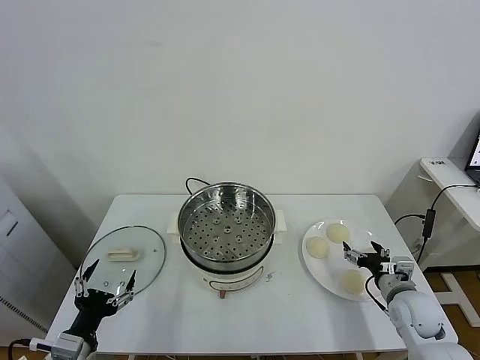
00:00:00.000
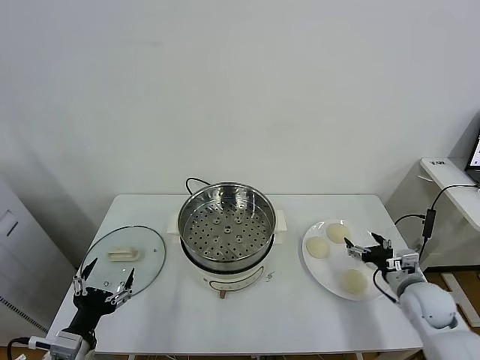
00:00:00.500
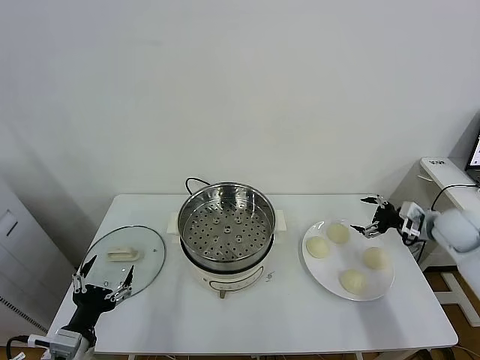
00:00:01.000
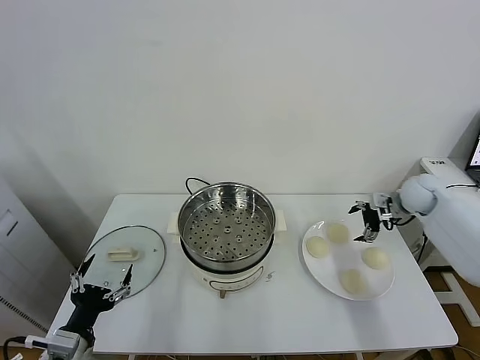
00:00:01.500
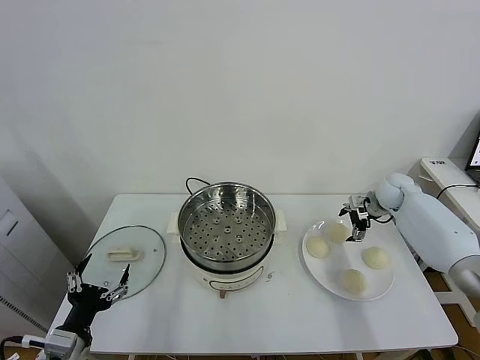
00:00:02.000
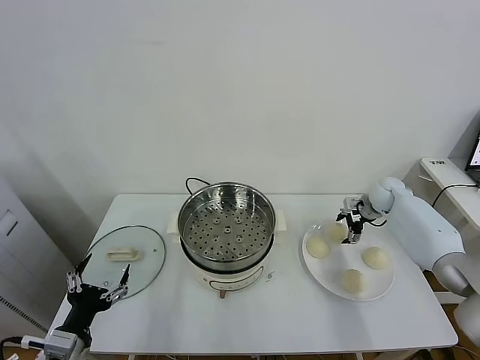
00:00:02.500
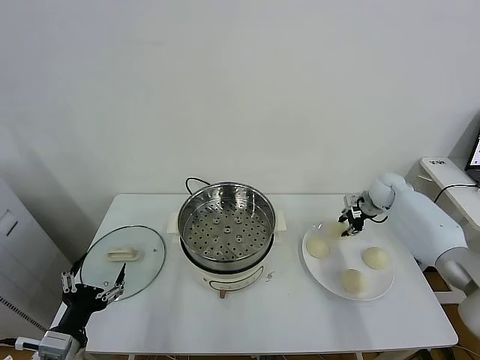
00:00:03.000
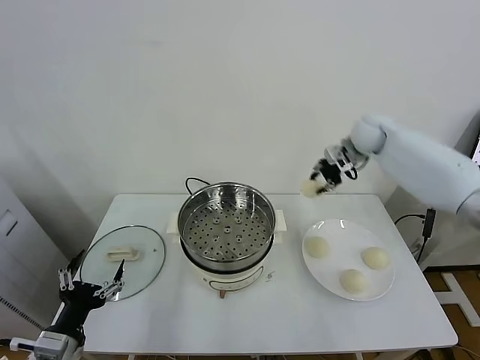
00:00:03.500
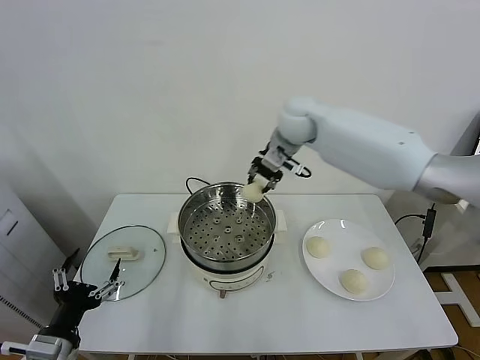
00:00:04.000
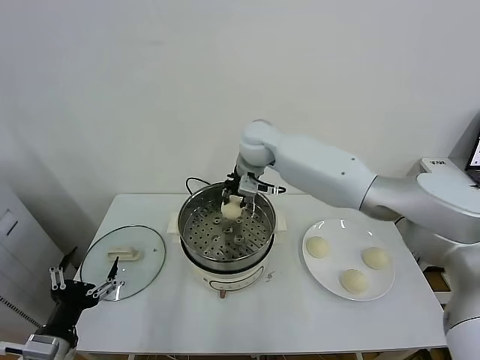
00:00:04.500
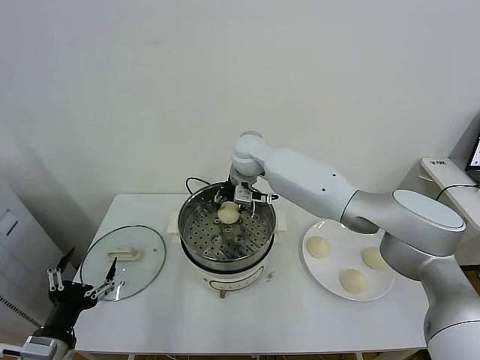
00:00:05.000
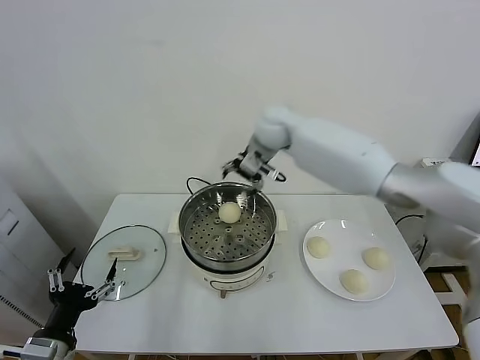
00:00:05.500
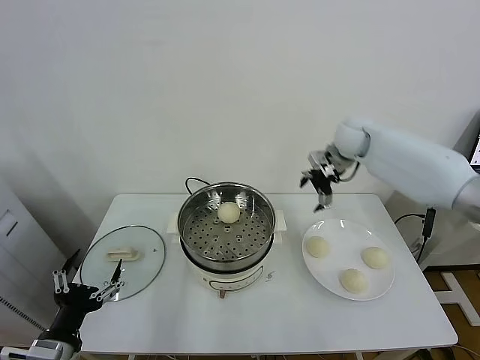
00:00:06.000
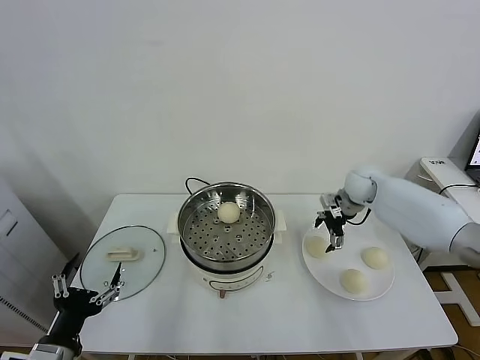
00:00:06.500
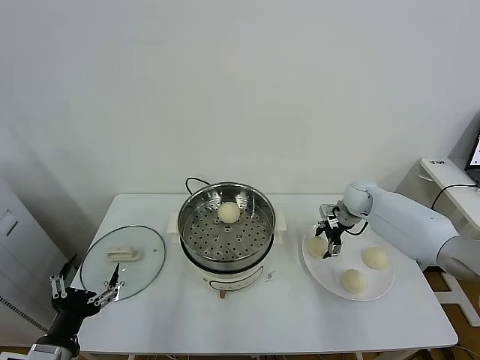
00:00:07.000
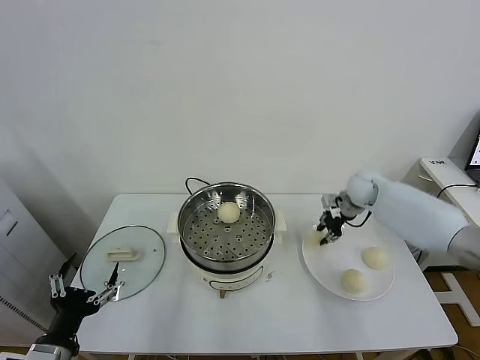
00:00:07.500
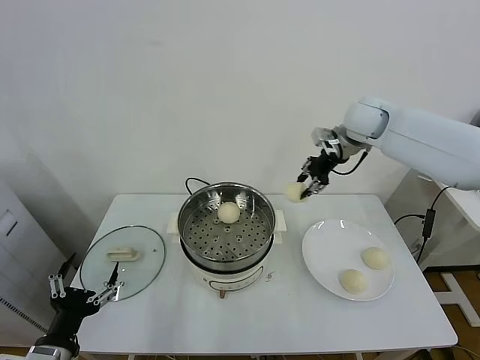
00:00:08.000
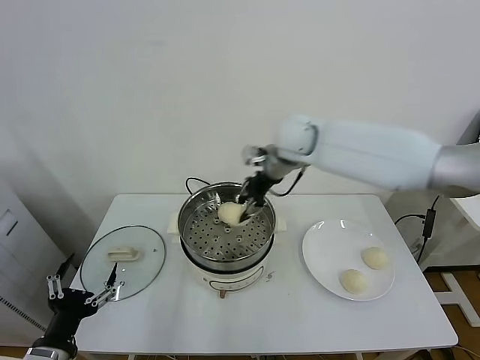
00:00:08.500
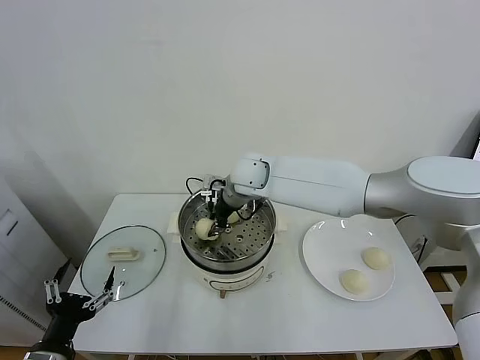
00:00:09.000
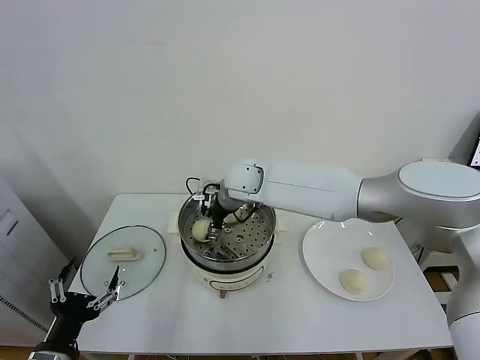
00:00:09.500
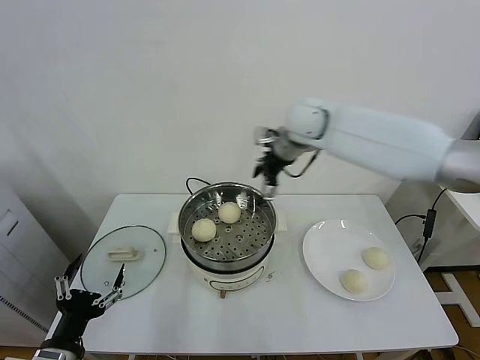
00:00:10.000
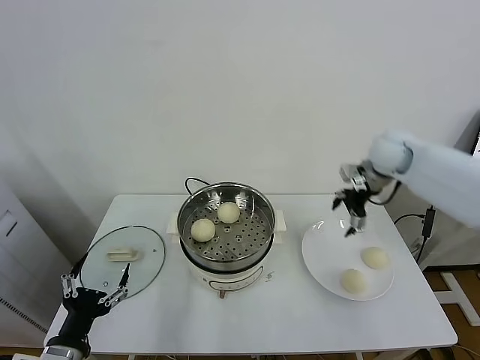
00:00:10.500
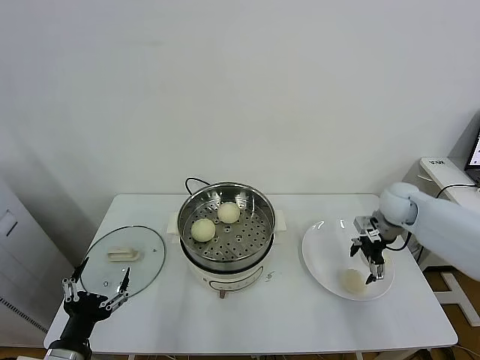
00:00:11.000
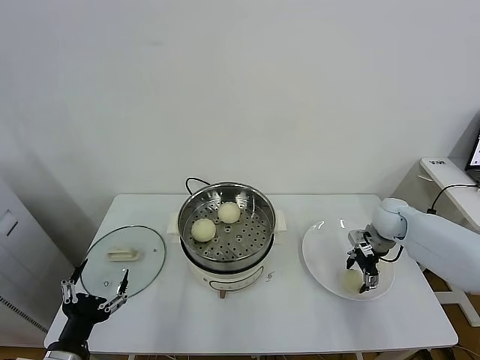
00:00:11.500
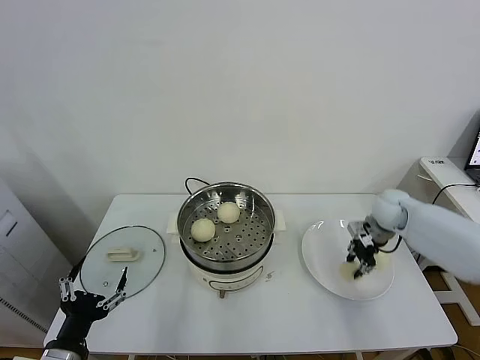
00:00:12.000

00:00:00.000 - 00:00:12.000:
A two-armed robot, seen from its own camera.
Task of the whole recording: take steamed baozi put them in steamer.
Step, 00:00:00.000 - 00:00:02.500: Grasp the baozi in the plate with right gripper.
Step, 00:00:03.000 - 00:00:05.000: Place the baozi on the steamer with right gripper.
Step, 00:00:05.500 - 00:00:07.000: Grasp the baozi in the plate with right gripper.
Step, 00:00:07.500 - 00:00:09.500: Place the baozi on the steamer with right gripper.
Step, 00:00:10.000 - 00:00:11.500: Grasp the baozi in the plate with right gripper.
00:00:02.000 - 00:00:04.000: The right gripper travels to the left and upward by about 40 cm, and closes up.
00:00:04.000 - 00:00:06.000: The right gripper goes some 20 cm to the right, and opens its fingers.
00:00:06.000 - 00:00:08.000: The right gripper travels upward by approximately 10 cm, and closes.
00:00:08.000 - 00:00:10.000: The right gripper travels to the left and back again, approximately 25 cm each way, and opens up.
00:00:10.000 - 00:00:12.000: The right gripper moves downward and to the right, approximately 30 cm, and closes up.

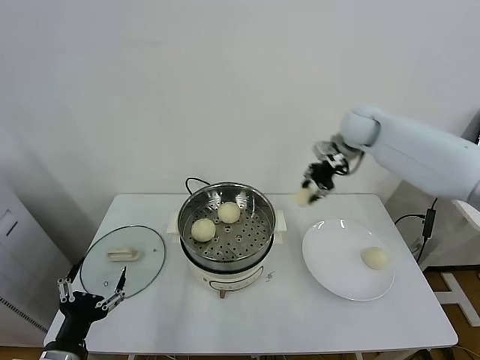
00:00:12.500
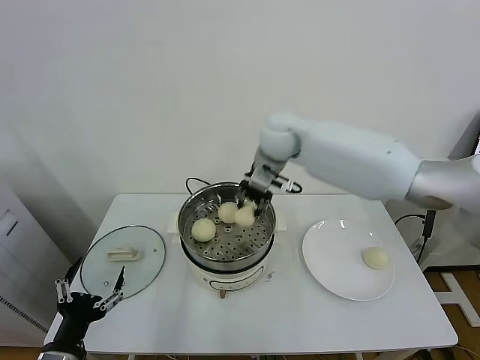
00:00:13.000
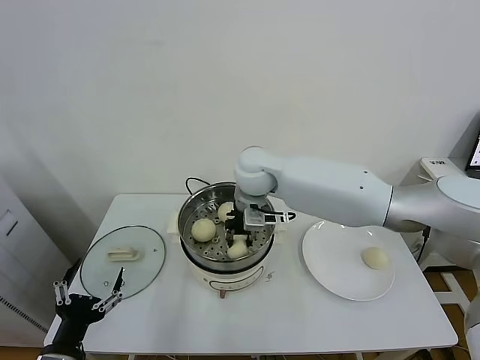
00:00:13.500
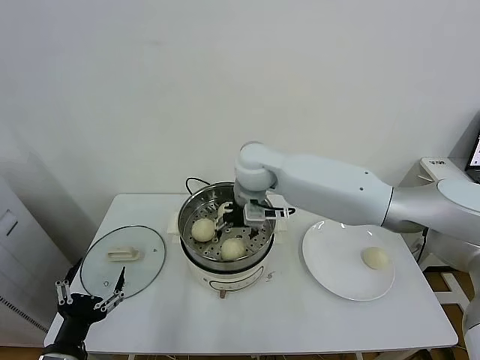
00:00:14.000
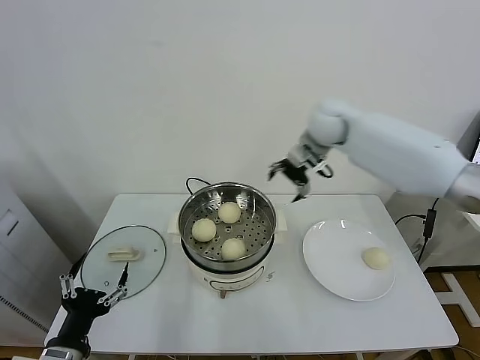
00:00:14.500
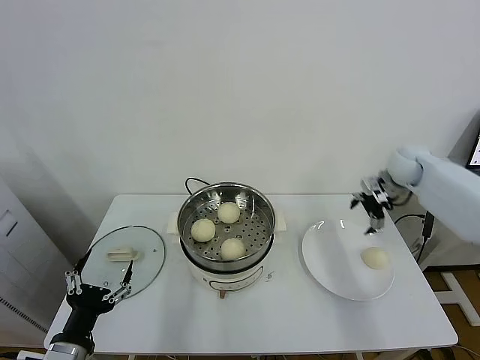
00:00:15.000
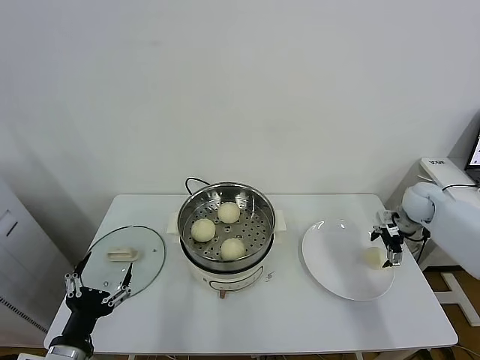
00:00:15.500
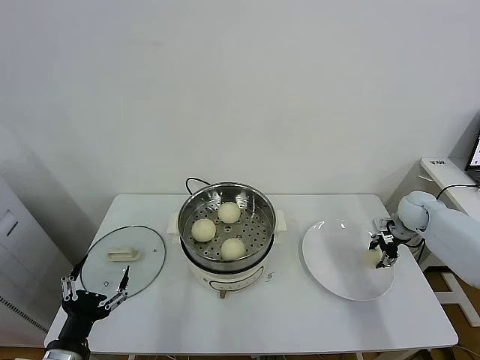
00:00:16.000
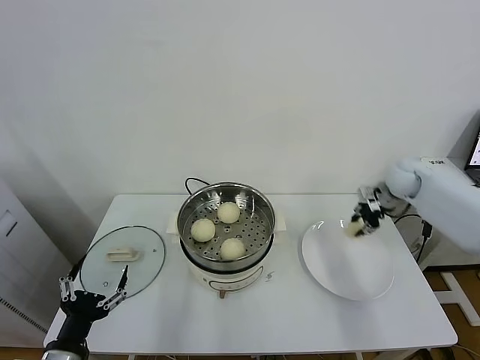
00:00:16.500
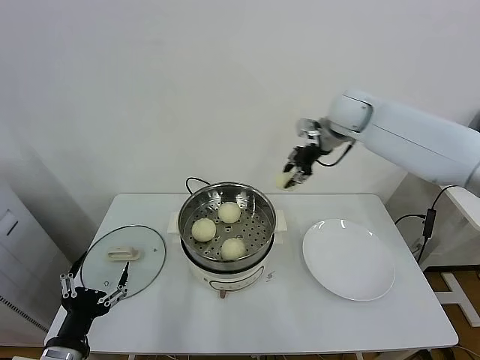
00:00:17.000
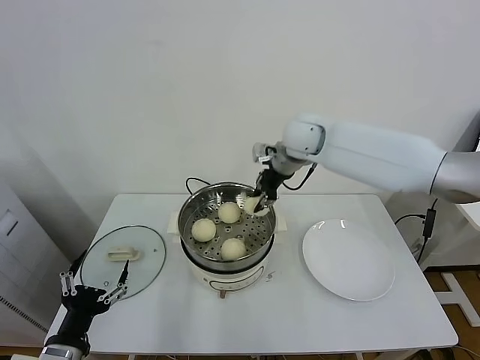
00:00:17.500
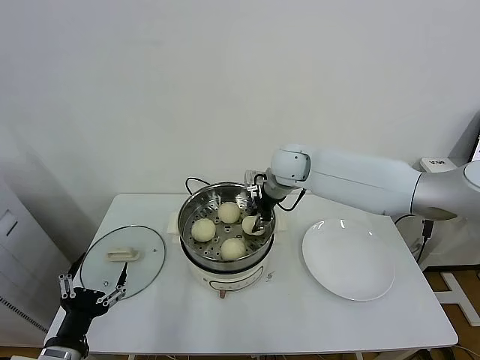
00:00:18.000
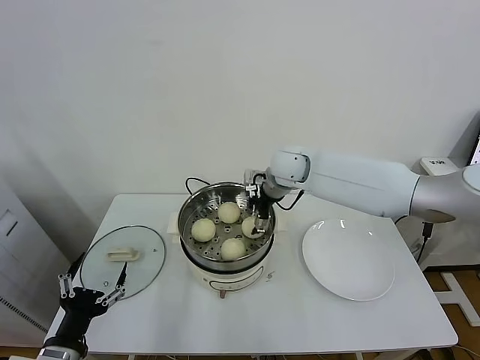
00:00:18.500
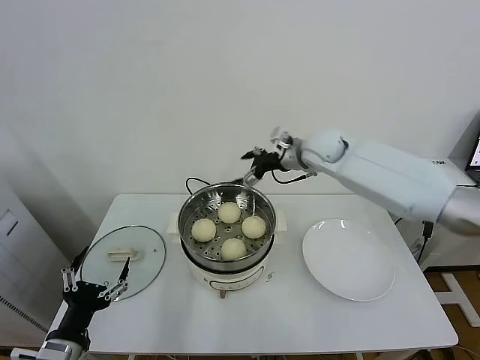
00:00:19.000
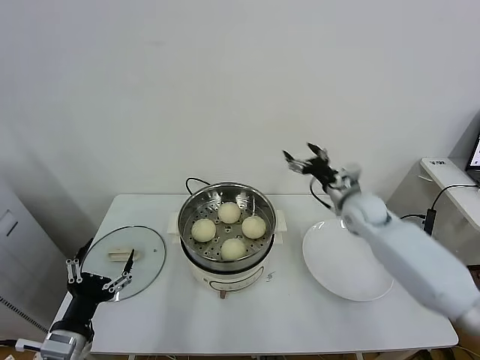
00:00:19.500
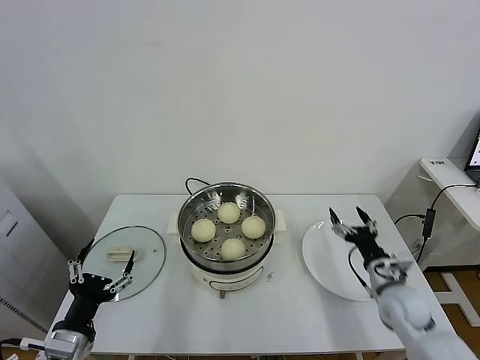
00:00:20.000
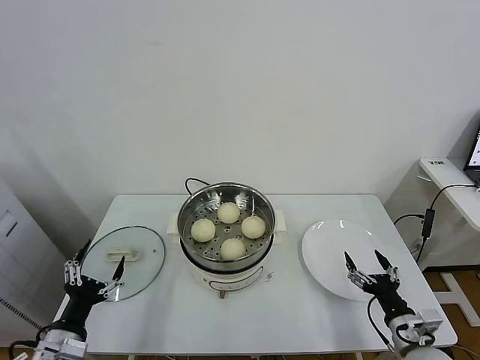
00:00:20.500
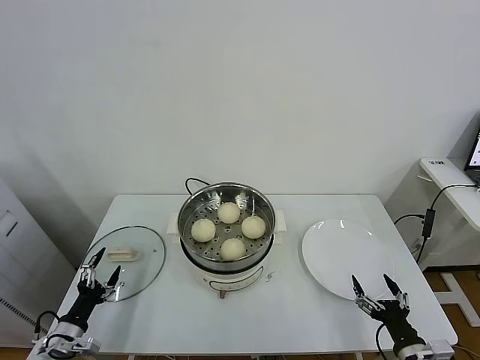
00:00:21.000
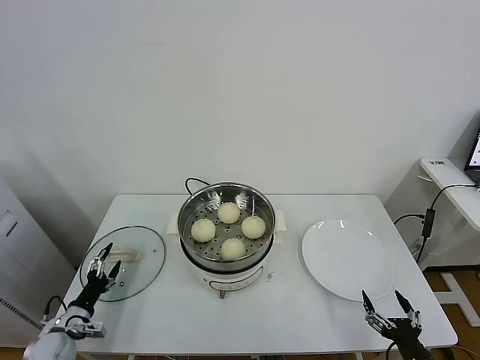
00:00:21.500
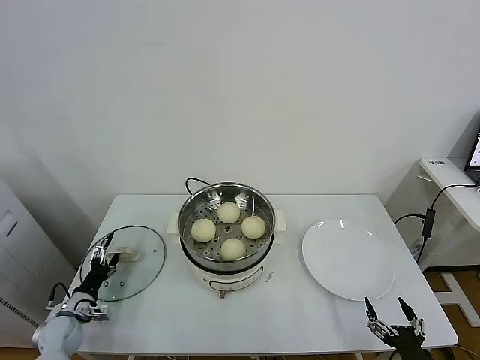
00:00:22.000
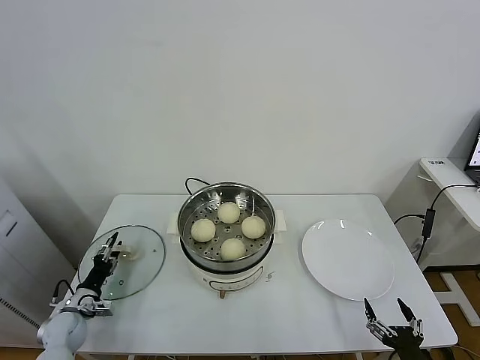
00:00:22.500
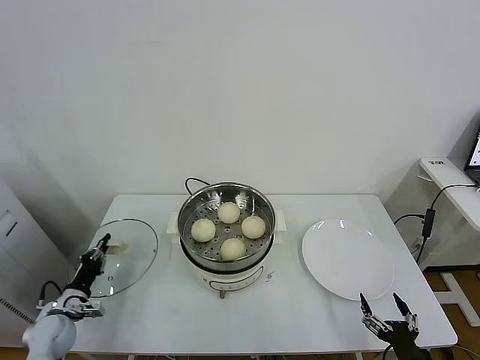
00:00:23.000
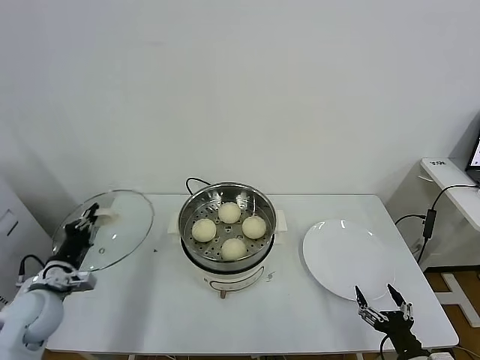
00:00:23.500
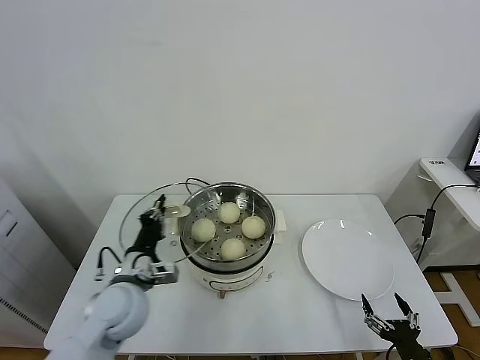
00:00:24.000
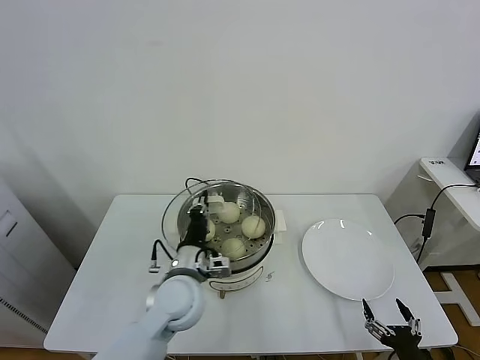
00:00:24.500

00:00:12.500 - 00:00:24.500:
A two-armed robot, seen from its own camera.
Task of the whole recording: take steamed baozi put them in steamer.
Step, 00:00:14.500 - 00:00:16.000: Grasp the baozi in the plate with right gripper.
Step, 00:00:16.500 - 00:00:18.500: Place the baozi on the steamer with right gripper.
Step, 00:00:19.000 - 00:00:22.500: Grasp the pot lid with left gripper.
00:00:12.500 - 00:00:14.500: The right gripper moves some 25 cm to the left and comes back, and opens its fingers.
00:00:14.500 - 00:00:16.500: The right gripper heads to the right and downward, covering approximately 25 cm, and closes up.
00:00:16.500 - 00:00:18.500: The right gripper shifts roughly 30 cm to the left, and opens up.
00:00:18.500 - 00:00:20.500: The left gripper moves some 5 cm, while the right gripper is displaced backward, to the right and downward by approximately 50 cm.
00:00:20.500 - 00:00:22.500: The right gripper moves backward, approximately 10 cm. The left gripper heads forward, downward and to the left, covering about 25 cm, and closes up.
00:00:22.500 - 00:00:24.500: The left gripper moves to the right and upward, roughly 35 cm, and closes its fingers.

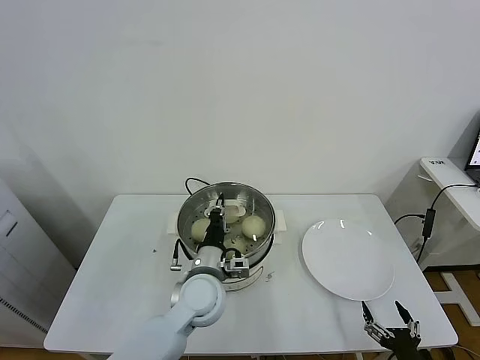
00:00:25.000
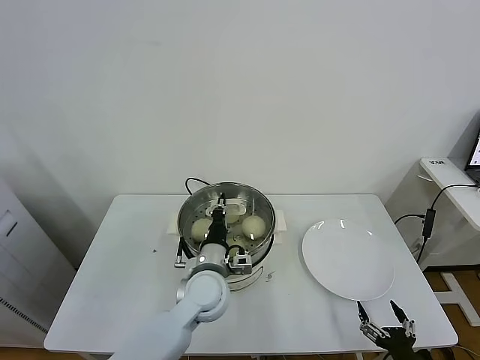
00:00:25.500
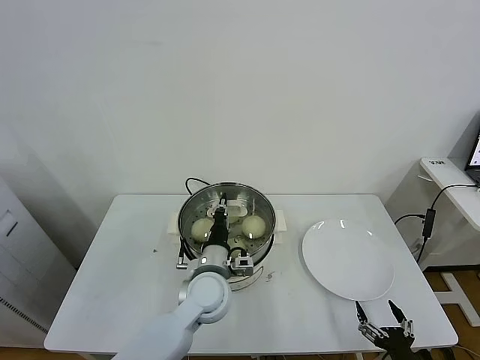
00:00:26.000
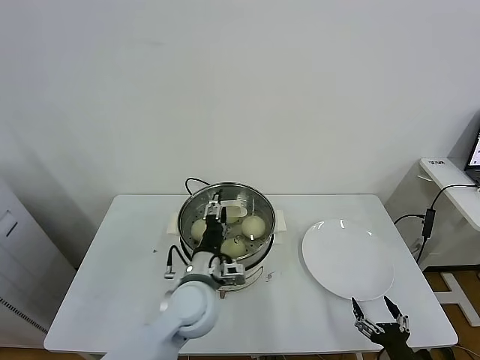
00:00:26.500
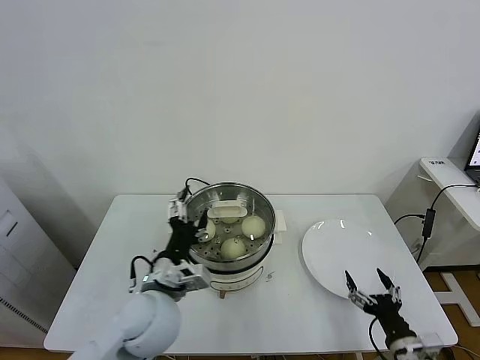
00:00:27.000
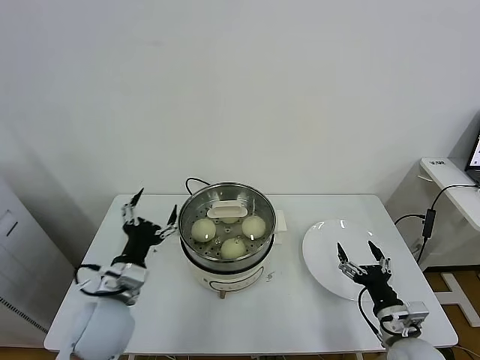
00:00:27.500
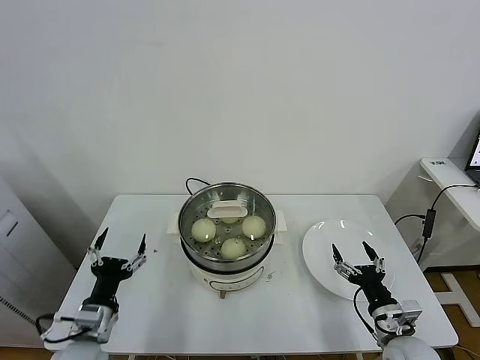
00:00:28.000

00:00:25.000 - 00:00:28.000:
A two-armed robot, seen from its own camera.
Task of the whole recording: take steamed baozi put them in steamer.
00:00:25.000 - 00:00:26.500: The left gripper opens.
00:00:26.500 - 00:00:28.000: The left gripper moves to the left, some 20 cm, and opens its fingers; the right gripper goes about 10 cm forward.
